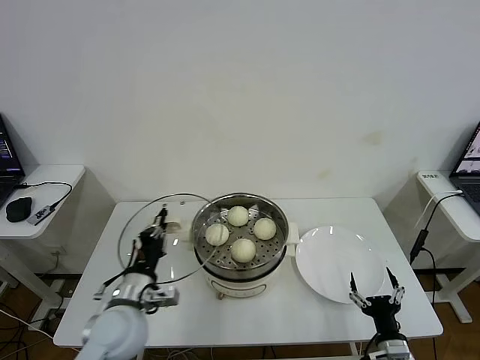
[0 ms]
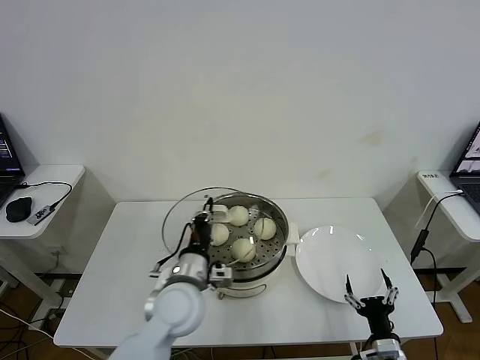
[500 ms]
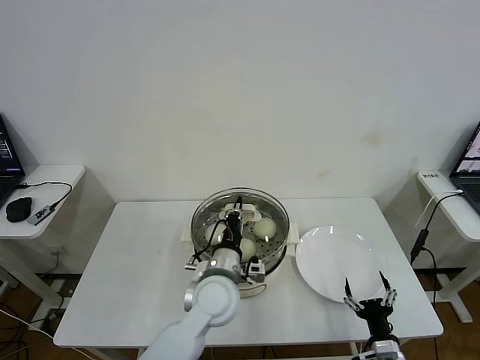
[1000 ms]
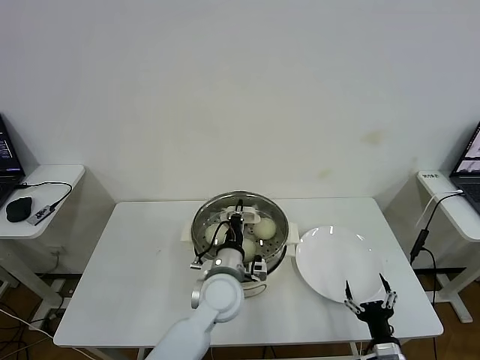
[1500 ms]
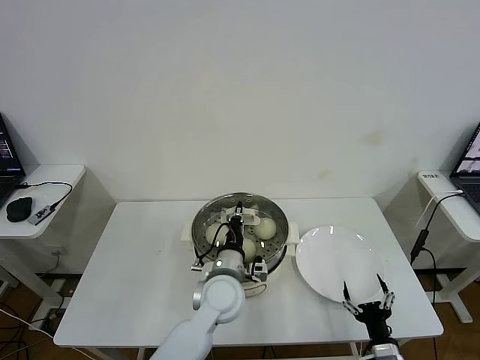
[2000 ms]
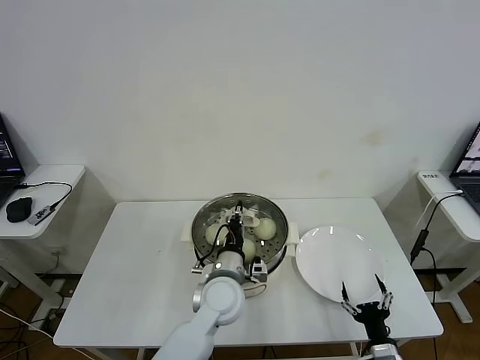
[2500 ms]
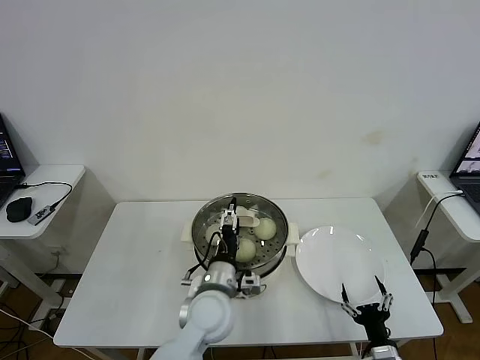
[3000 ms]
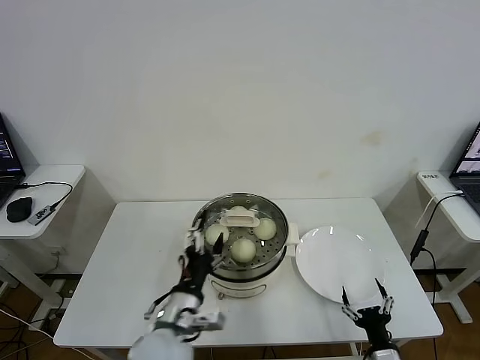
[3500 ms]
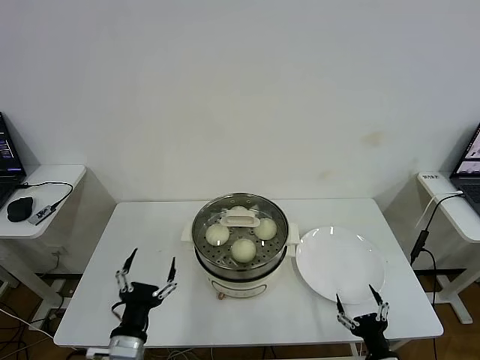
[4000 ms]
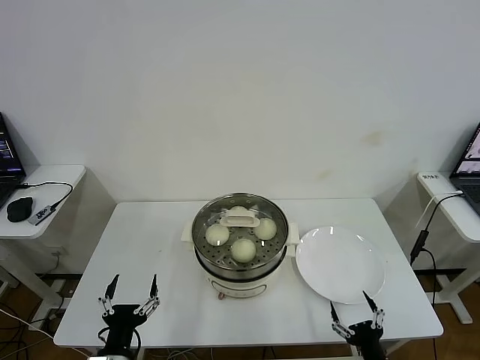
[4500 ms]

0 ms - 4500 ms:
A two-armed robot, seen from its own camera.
Task of the whole recording: take steamed baozi put them in steamer then cover it.
Step, 0 ms - 2500 ms: Place the pot lid on the steamer with left gripper.
0 ms - 2000 ms: The left gripper shifts roughly 20 cm to the right and forward.
2000 ms - 4500 ms: The right gripper ends up roughly 5 cm from where it was. The left gripper shifts about 30 cm to the left and backward, and opens its fingers.
